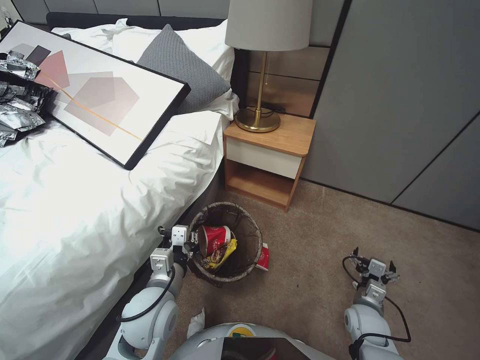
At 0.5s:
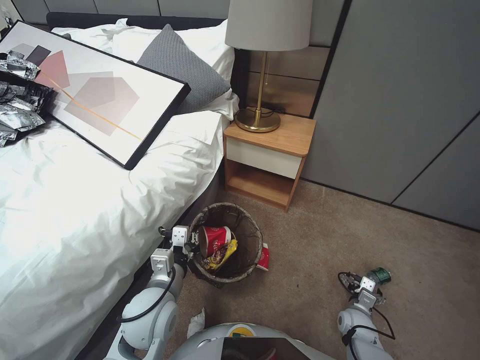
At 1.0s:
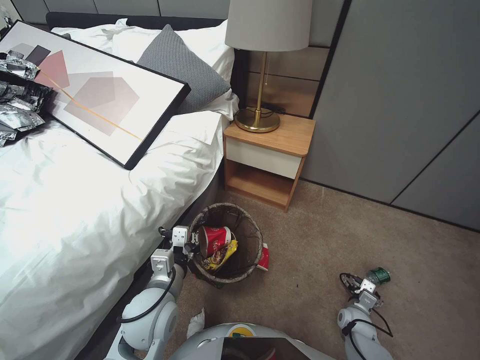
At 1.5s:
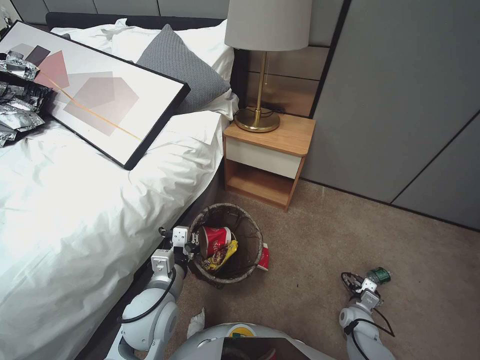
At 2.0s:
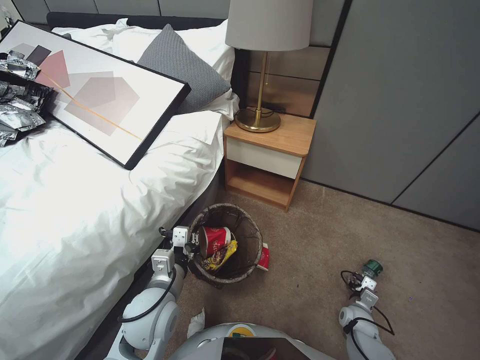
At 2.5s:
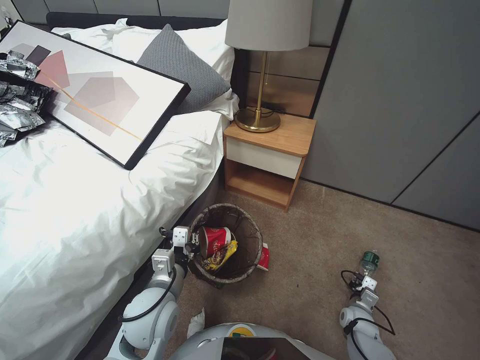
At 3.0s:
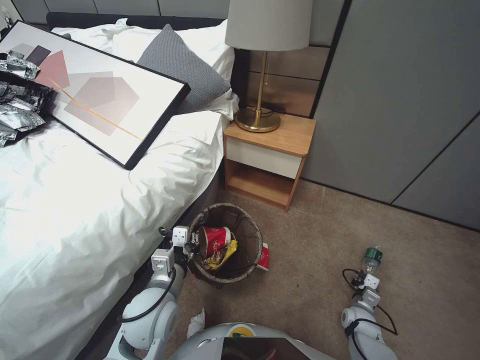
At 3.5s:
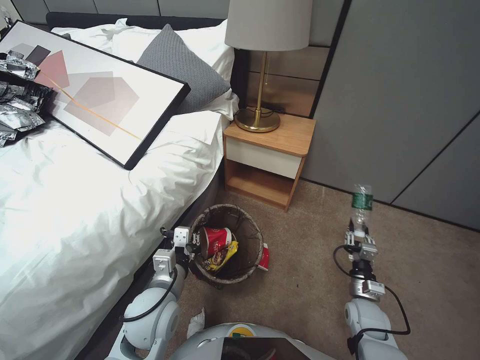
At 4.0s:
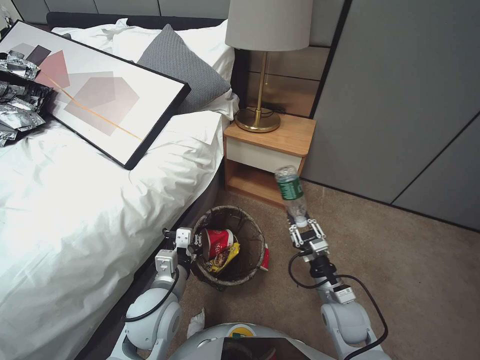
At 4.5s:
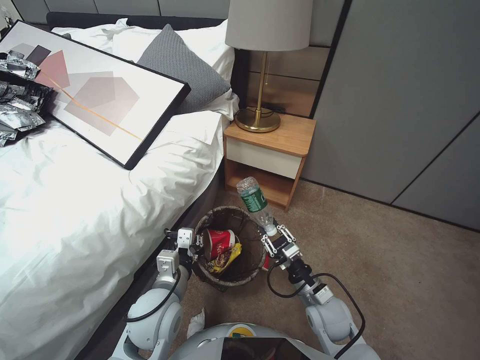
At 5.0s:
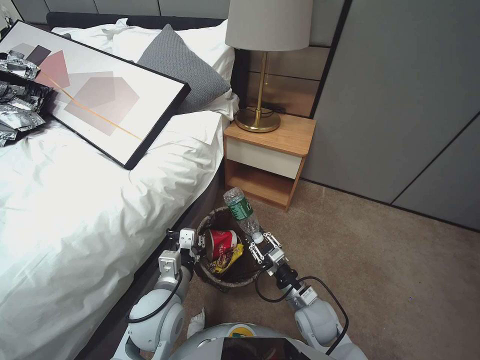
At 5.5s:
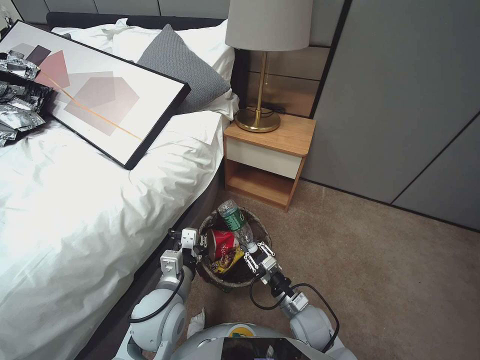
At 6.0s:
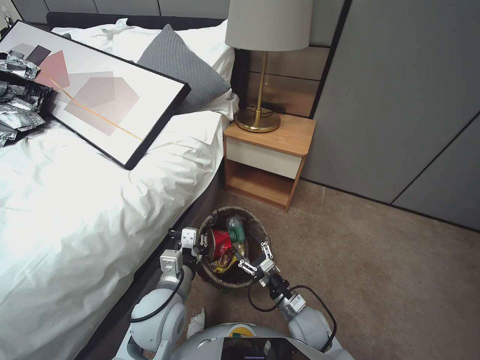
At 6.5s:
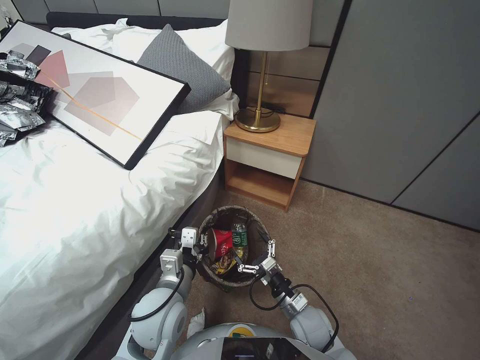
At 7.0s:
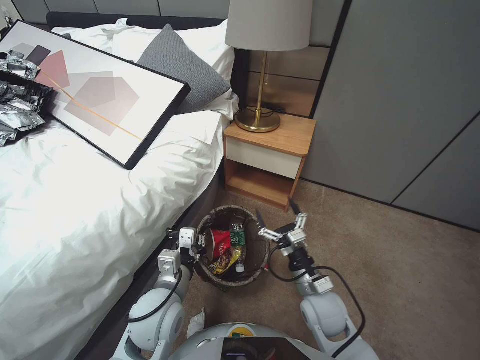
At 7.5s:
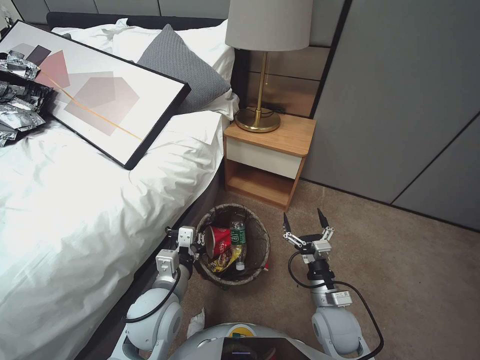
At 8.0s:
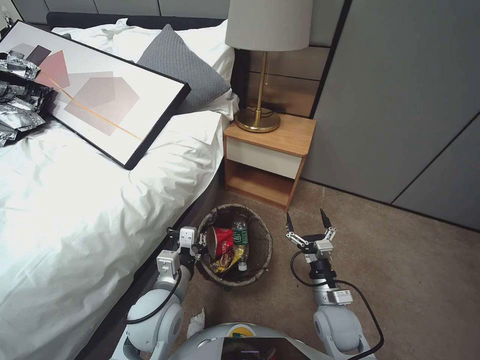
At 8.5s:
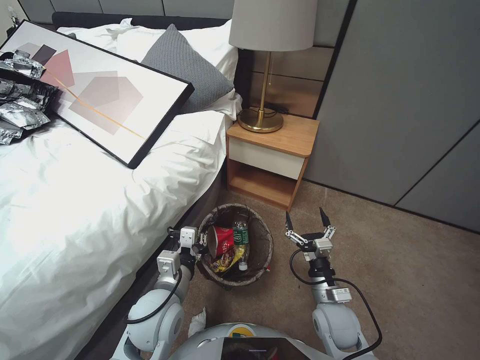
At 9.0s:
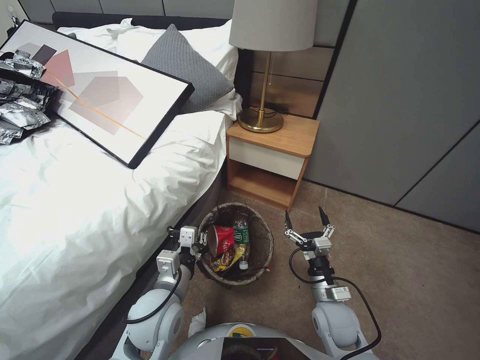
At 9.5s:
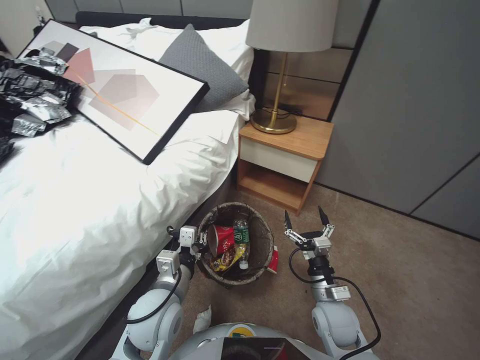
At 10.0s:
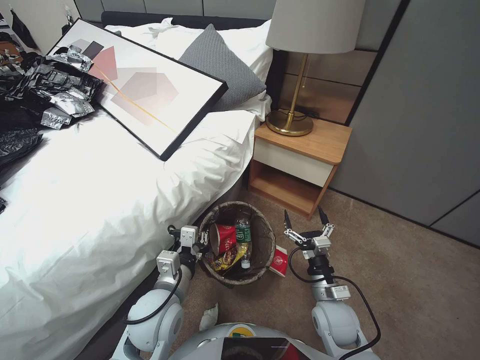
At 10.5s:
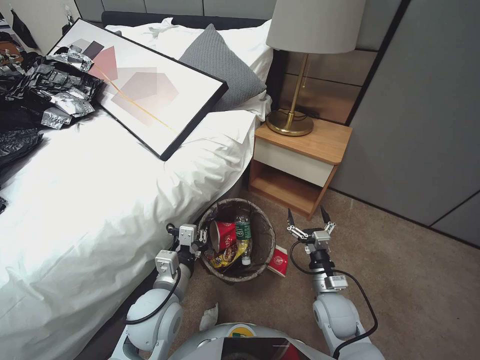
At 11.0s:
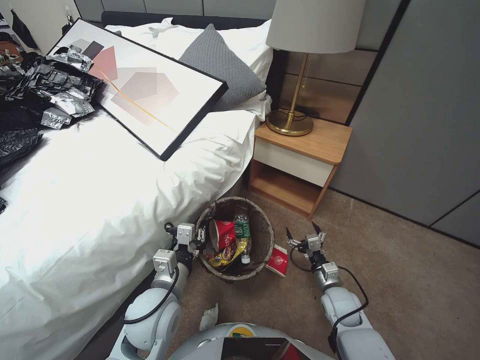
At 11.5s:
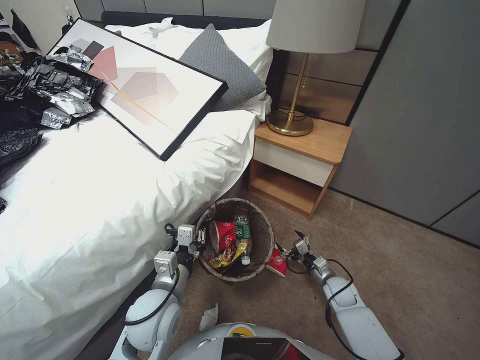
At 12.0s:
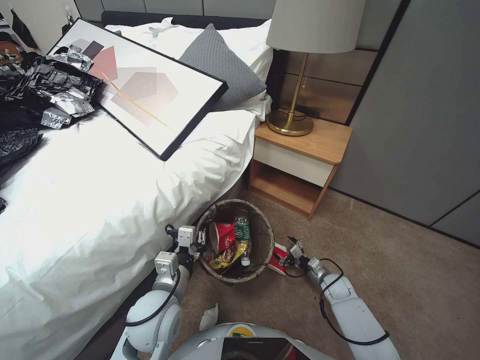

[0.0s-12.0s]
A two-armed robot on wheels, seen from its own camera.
Task of the whole recording: Pick up the trash bin, then pick up the garbage from the floor and place it into the trash bin.
0.0s to 2.0s: The right gripper heads downward, covering about 15 cm, and closes.
2.0s to 4.0s: The right gripper travels upward and to the left by approximately 25 cm, and closes up.
4.0s to 6.0s: The right gripper moves to the left and downward, approximately 10 cm.
6.0s to 8.0s: The right gripper shifts roughly 5 cm upward and to the right, and opens up.
10.0s to 12.0s: The right gripper heads downward, to the right and forward, covering some 20 cm.

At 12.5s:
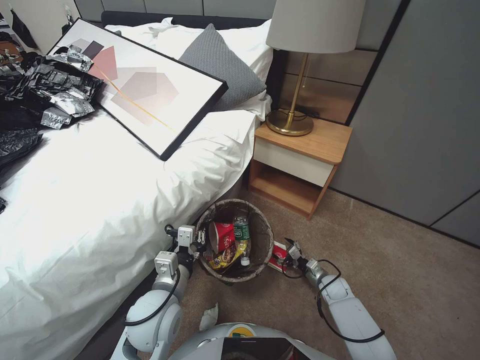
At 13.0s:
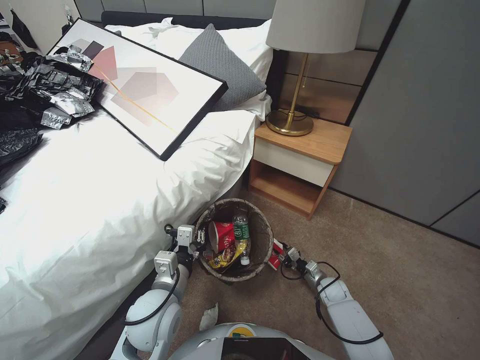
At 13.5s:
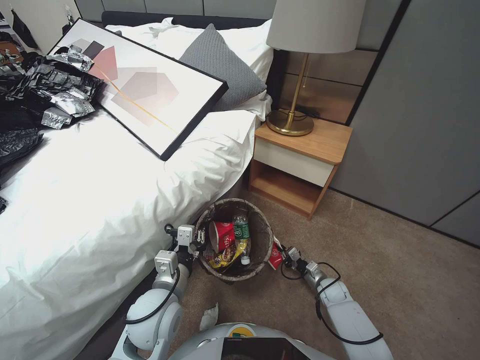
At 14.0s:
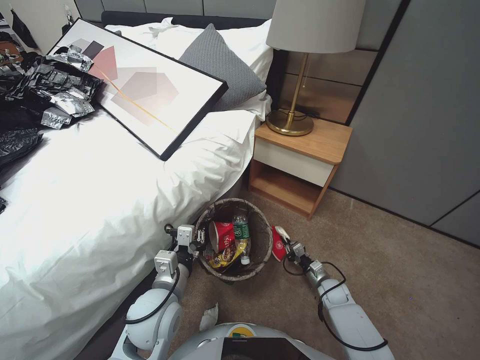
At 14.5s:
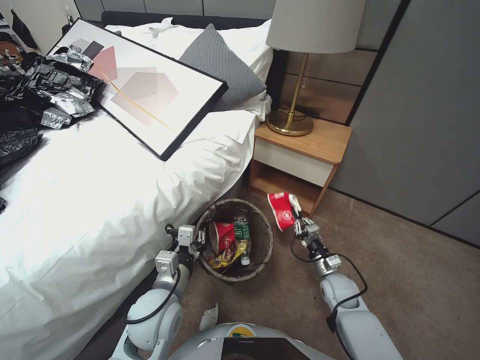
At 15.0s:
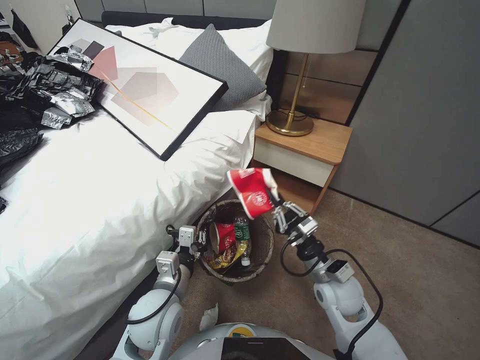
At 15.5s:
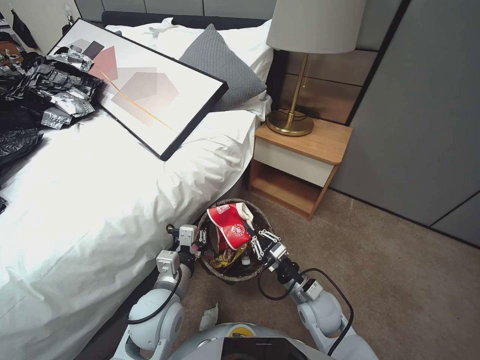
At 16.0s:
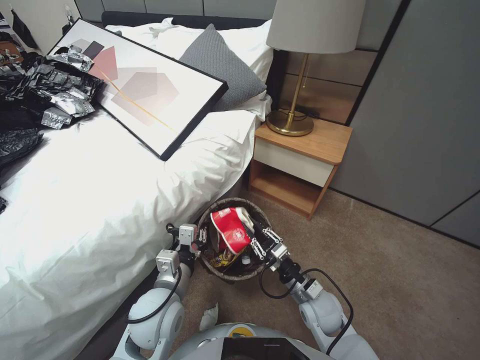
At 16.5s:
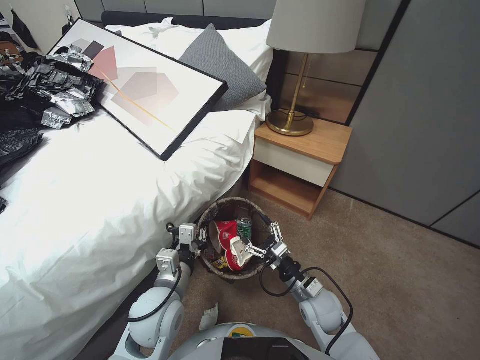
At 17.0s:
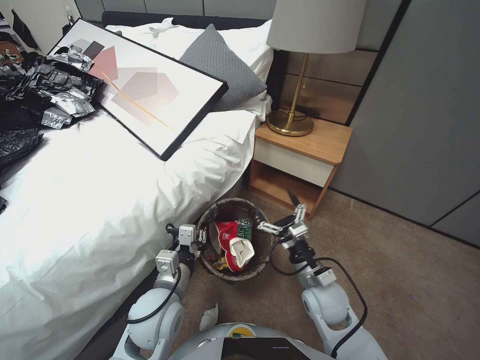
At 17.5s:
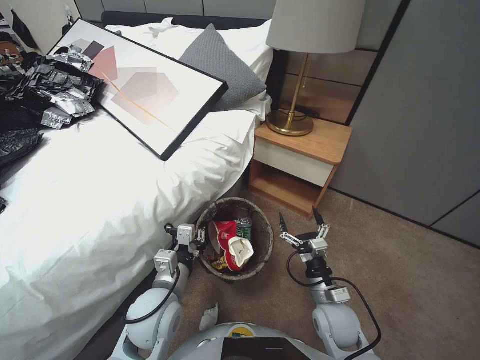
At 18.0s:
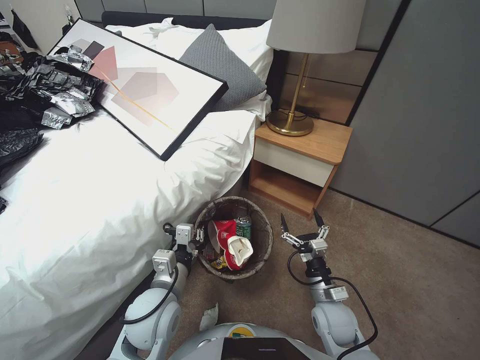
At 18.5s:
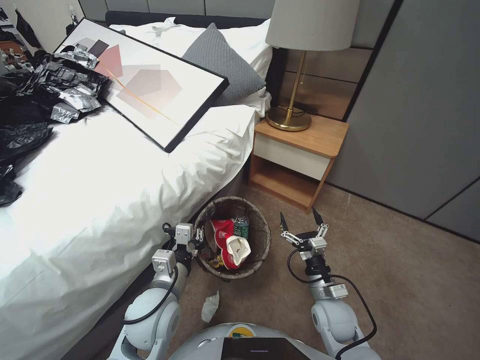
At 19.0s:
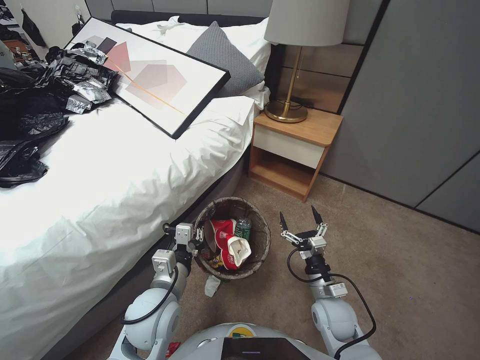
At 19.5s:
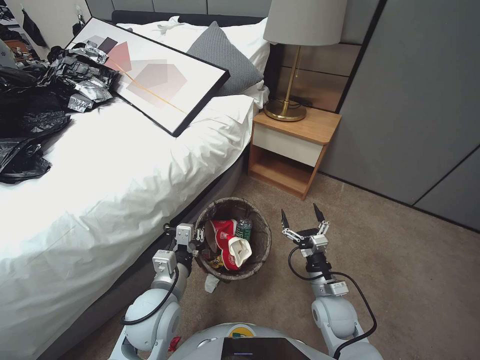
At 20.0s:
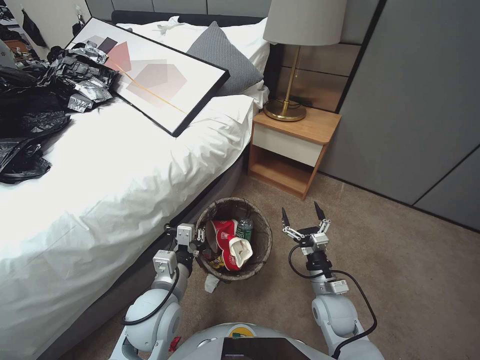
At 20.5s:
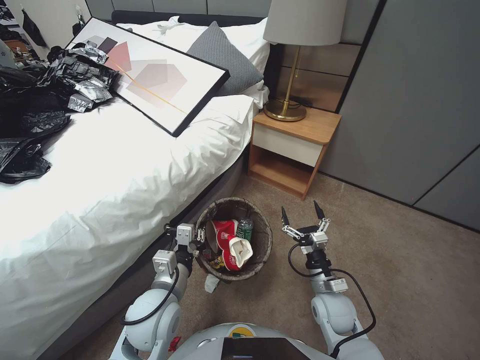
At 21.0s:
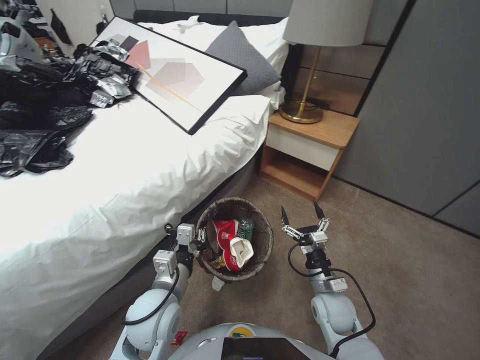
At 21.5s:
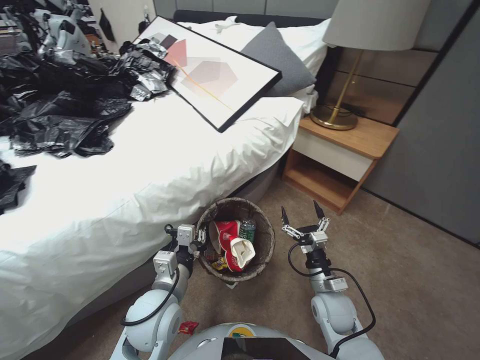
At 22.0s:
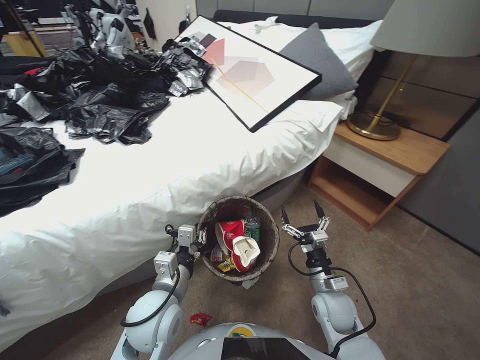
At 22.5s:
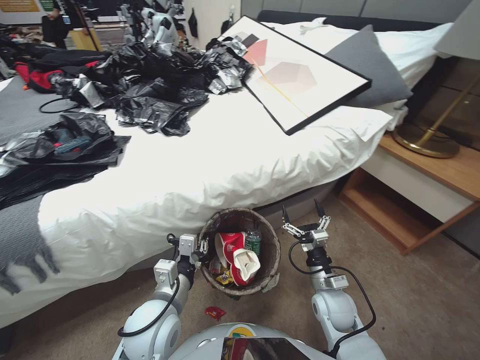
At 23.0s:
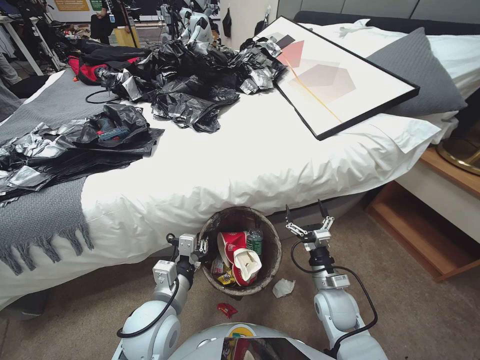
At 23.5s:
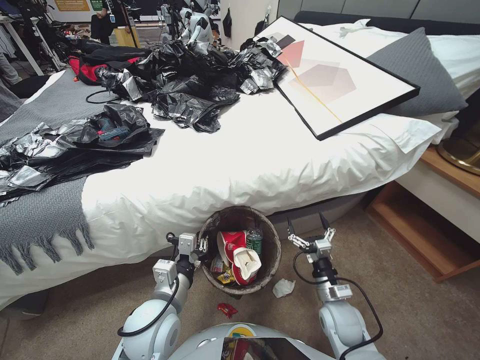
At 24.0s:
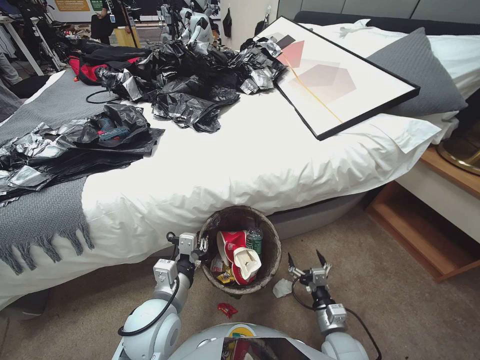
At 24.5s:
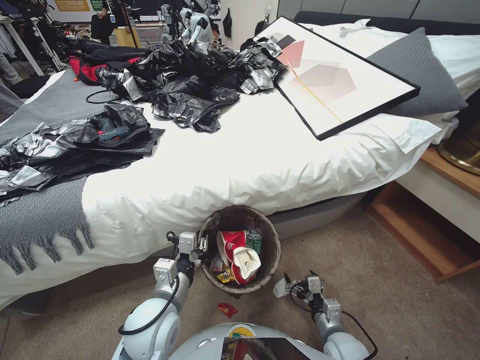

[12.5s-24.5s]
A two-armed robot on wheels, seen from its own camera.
Task of the whole recording: Pick up the trash bin, then pick up the garbage from the floor and place it into the trash bin.
12.5s to 14.5s: The right gripper goes roughly 5 cm upward, and closes its fingers.
14.5s to 16.5s: The right gripper shifts approximately 15 cm to the left, upward and backward, and opens its fingers.
22.5s to 24.5s: The right gripper travels backward and downward by some 10 cm.

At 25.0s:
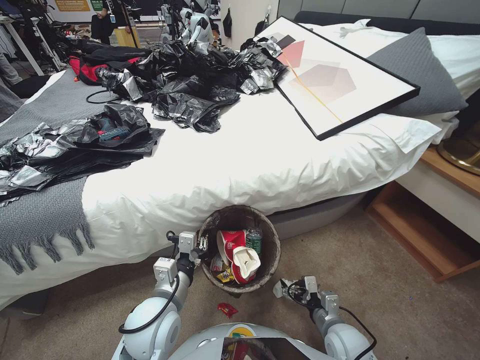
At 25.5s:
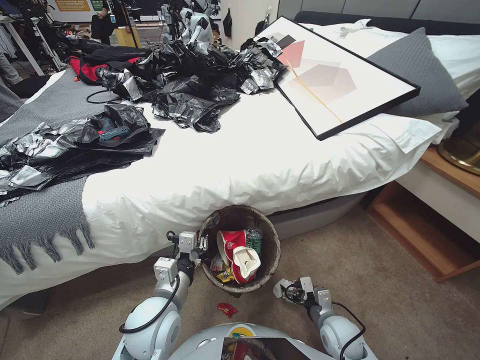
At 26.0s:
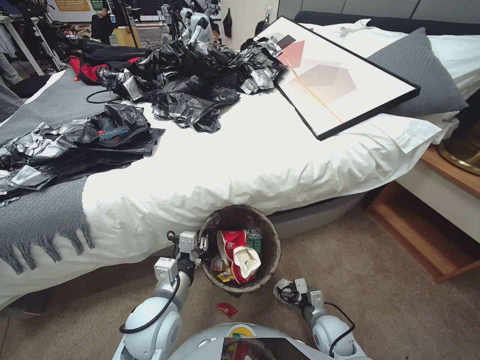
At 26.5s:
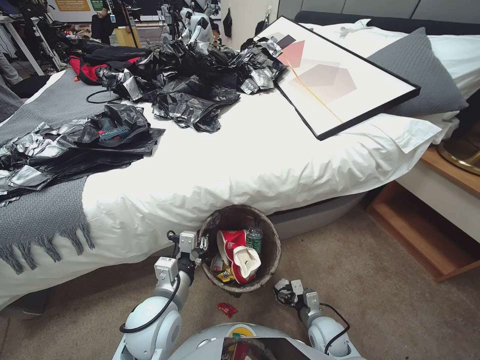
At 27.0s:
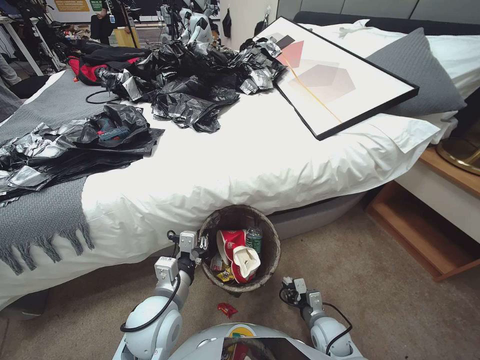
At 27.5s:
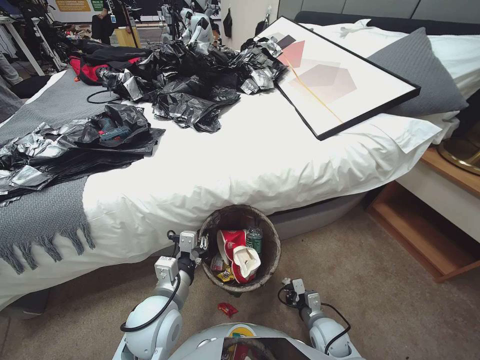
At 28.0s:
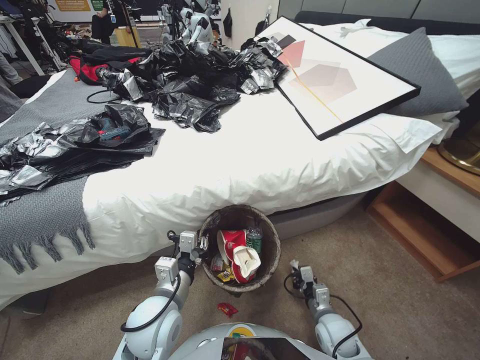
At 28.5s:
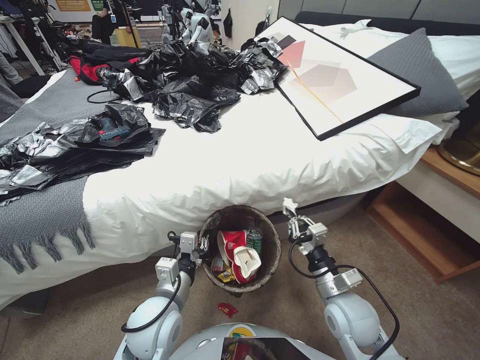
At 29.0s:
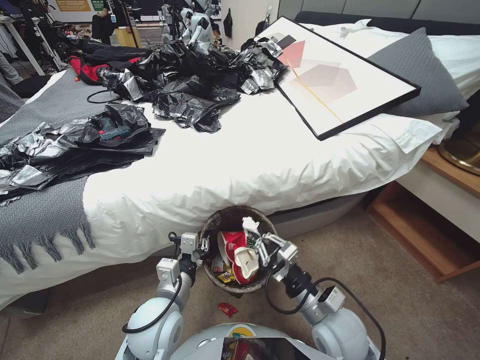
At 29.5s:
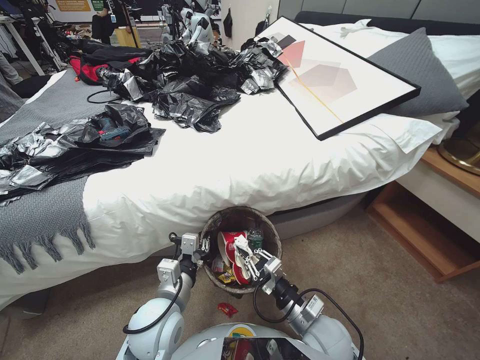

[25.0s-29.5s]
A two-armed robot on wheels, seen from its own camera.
Task of the whole recording: Pick up the trash bin, then pick up the garbage from the floor and place it into the trash bin.
25.0s to 27.0s: The right gripper goes roughly 5 cm downward, and closes.
27.0s to 29.5s: The right gripper moves upward and to the left, about 20 cm.
